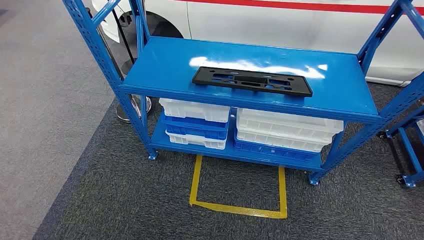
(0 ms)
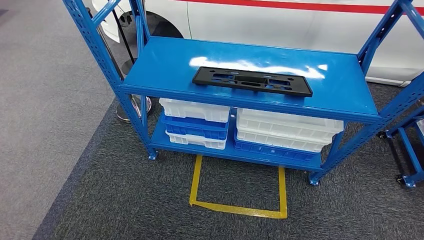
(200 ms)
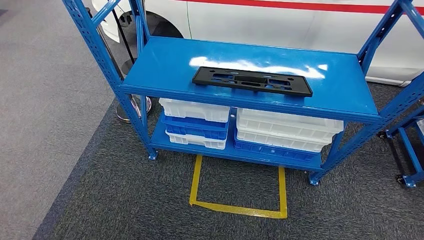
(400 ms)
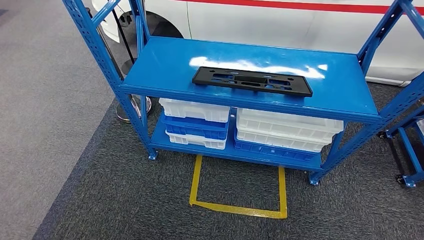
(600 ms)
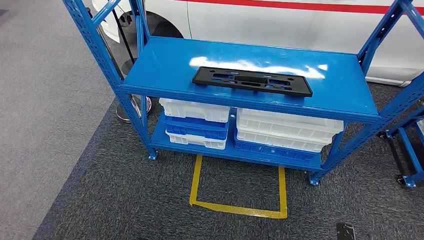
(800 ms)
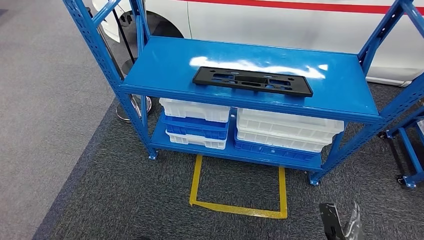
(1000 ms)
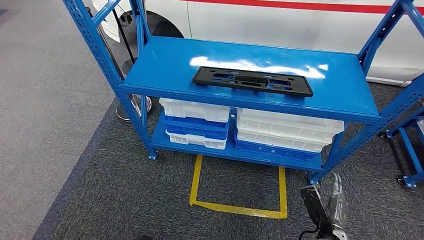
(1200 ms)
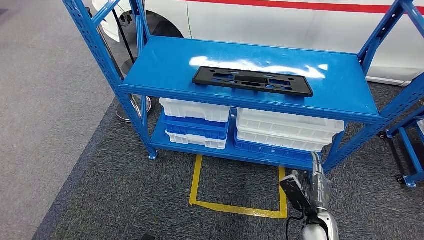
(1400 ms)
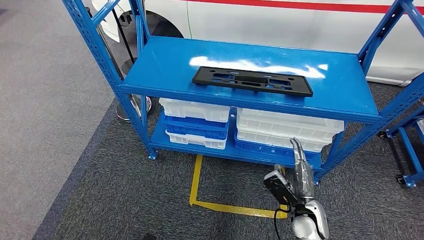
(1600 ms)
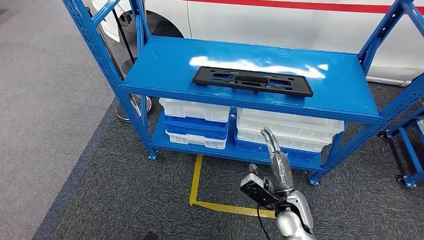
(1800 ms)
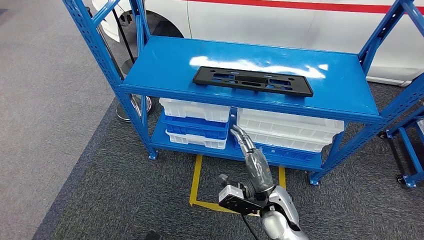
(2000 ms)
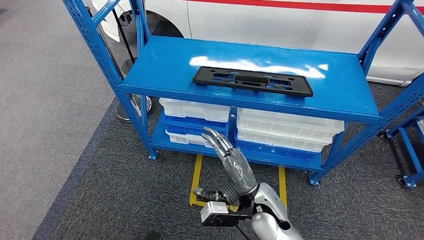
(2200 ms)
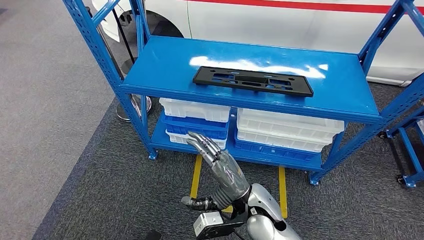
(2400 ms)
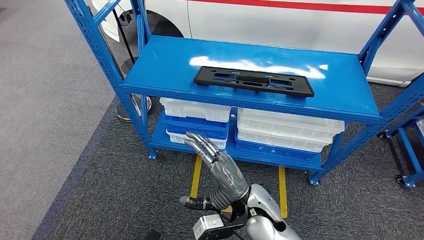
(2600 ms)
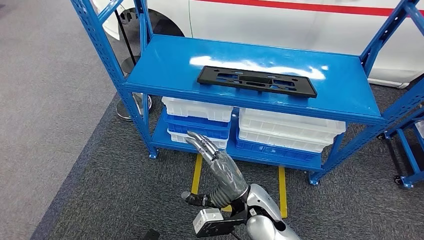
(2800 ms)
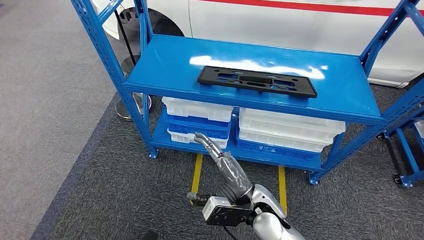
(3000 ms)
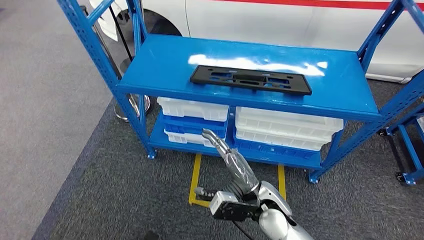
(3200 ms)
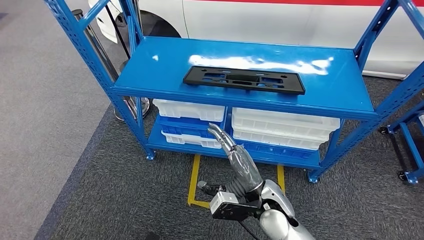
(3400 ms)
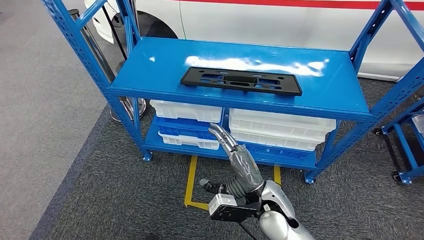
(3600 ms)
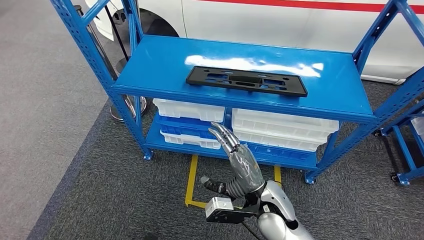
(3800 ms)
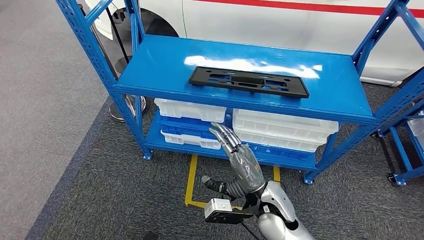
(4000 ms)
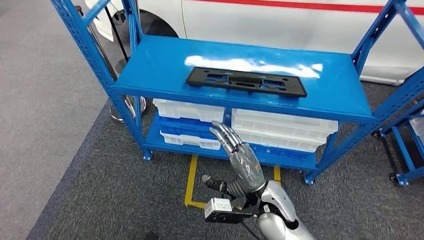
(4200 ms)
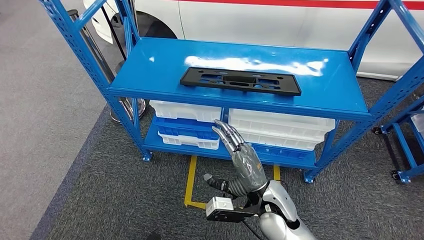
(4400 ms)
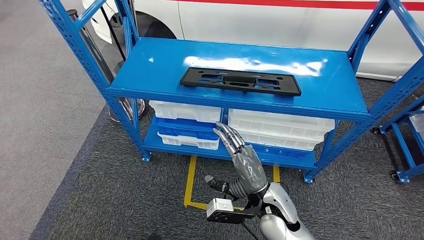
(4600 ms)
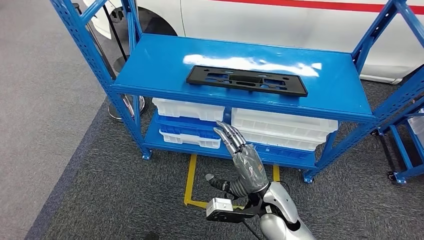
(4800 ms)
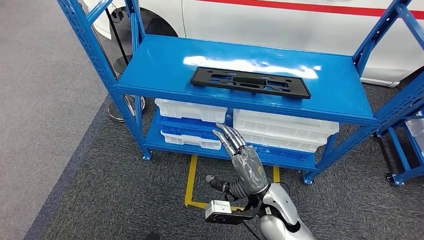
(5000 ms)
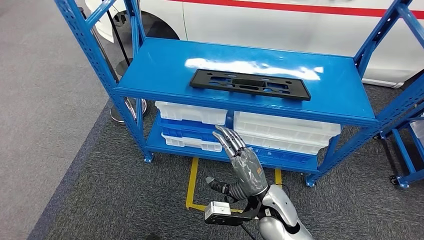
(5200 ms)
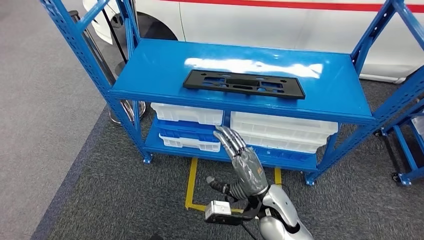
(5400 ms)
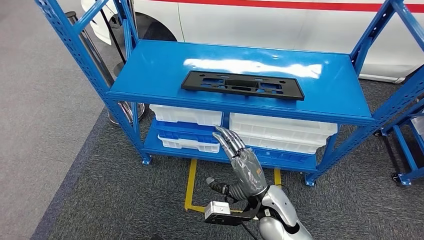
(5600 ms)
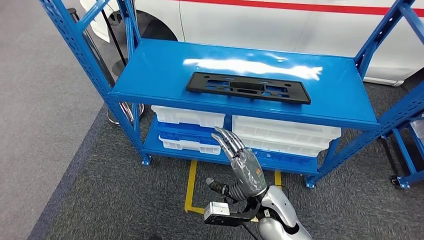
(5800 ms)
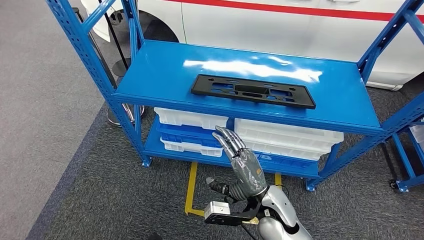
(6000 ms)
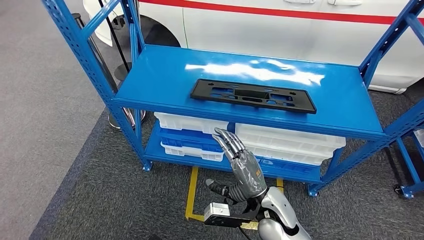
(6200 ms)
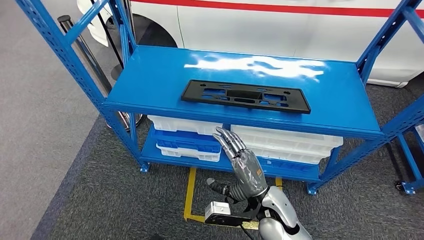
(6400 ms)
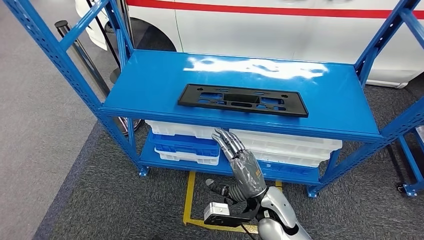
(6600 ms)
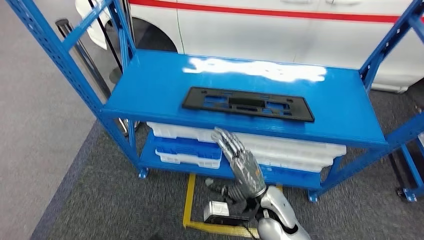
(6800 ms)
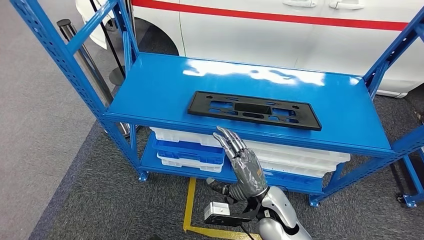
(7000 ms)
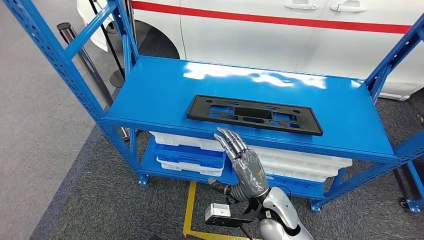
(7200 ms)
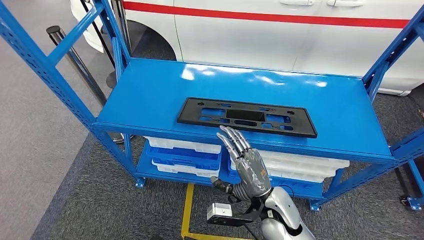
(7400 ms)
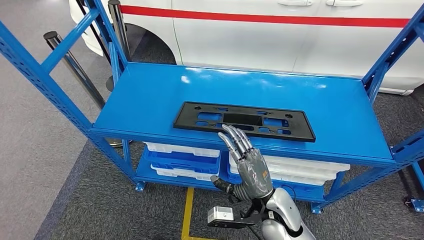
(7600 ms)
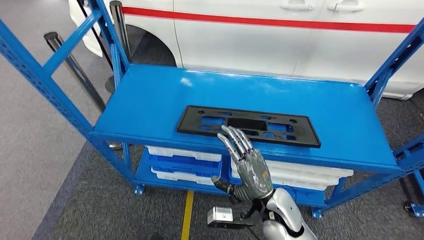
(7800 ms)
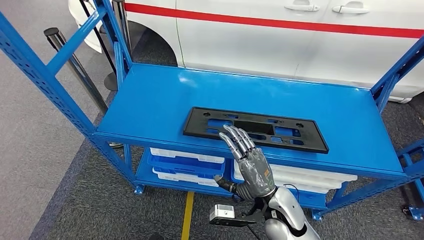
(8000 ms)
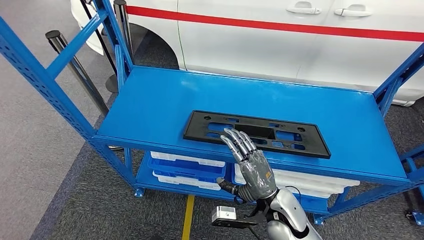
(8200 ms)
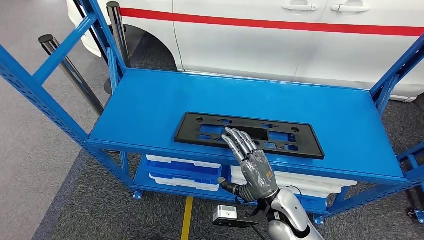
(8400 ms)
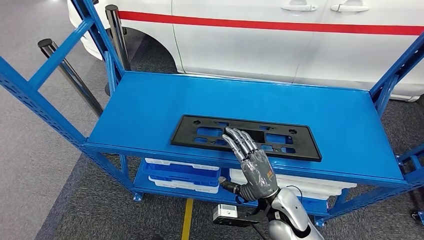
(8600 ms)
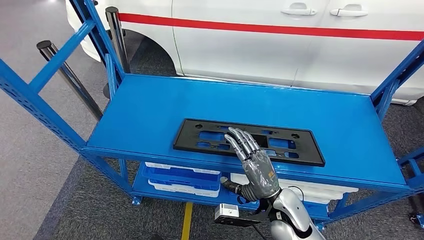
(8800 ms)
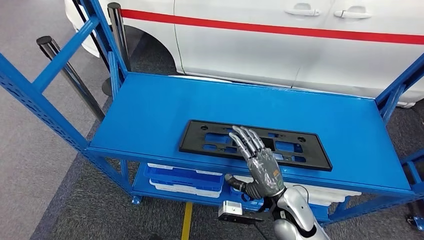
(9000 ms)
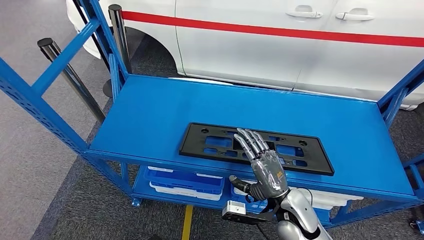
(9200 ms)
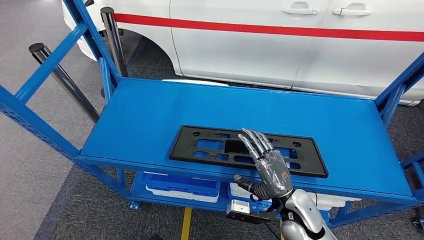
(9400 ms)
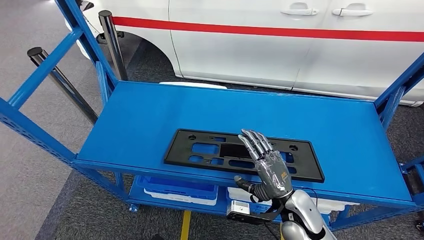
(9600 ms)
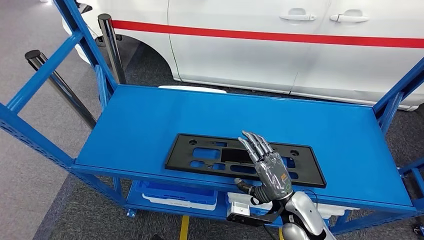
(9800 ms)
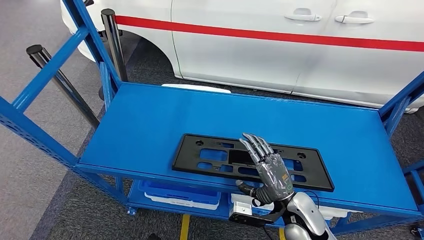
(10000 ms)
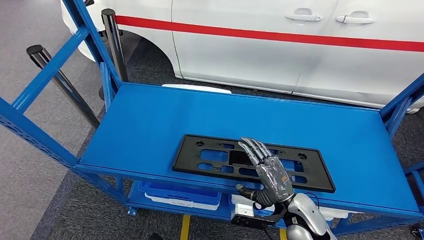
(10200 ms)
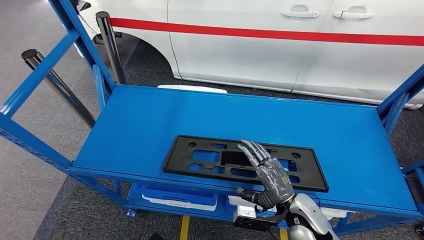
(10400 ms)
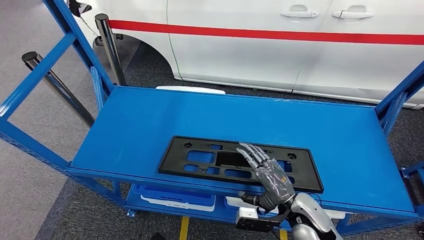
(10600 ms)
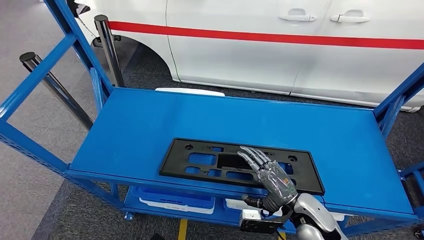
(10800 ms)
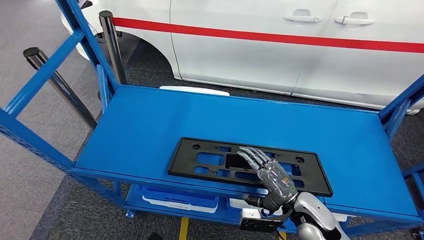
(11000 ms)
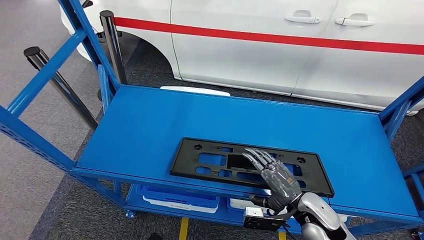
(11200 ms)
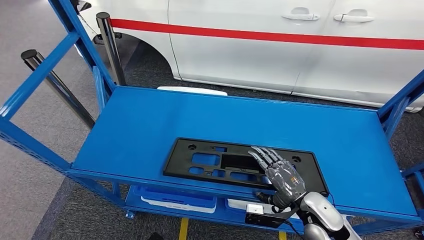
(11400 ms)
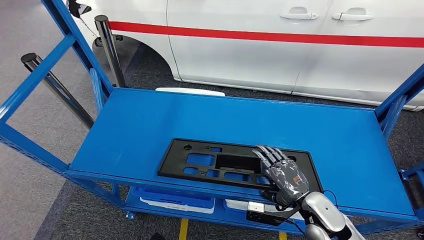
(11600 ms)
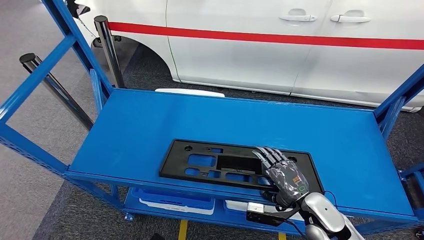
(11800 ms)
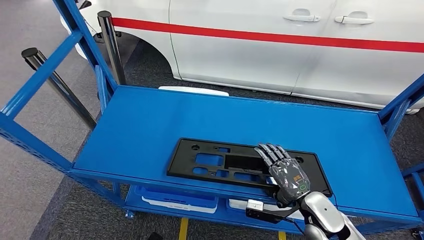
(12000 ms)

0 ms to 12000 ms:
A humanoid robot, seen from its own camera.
1600 ms to 3000 ms: The right hand is displaced to the left and upward by approximately 20 cm.

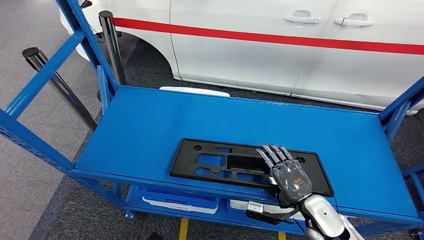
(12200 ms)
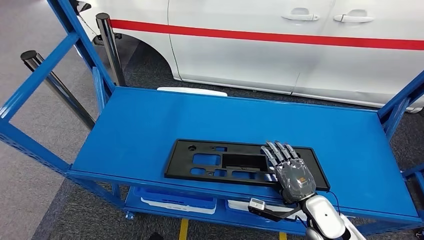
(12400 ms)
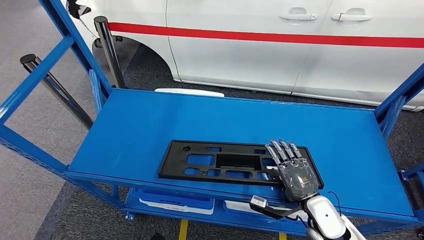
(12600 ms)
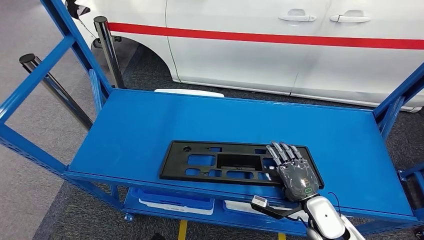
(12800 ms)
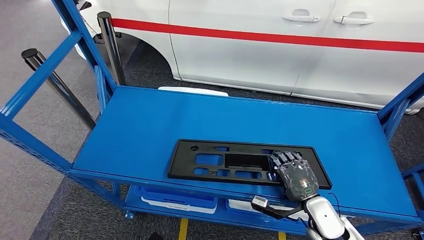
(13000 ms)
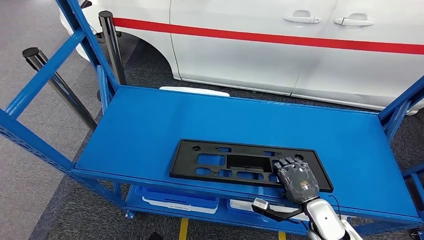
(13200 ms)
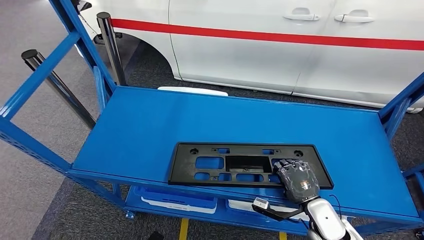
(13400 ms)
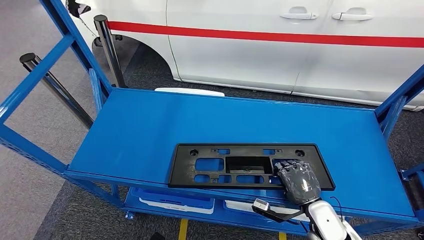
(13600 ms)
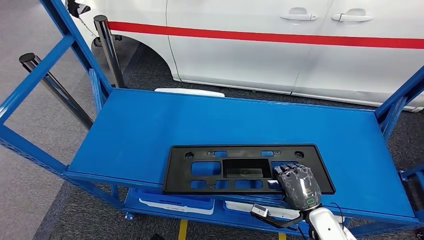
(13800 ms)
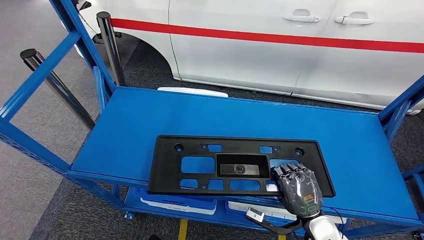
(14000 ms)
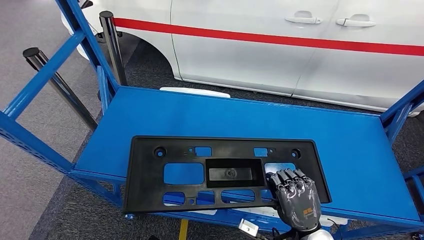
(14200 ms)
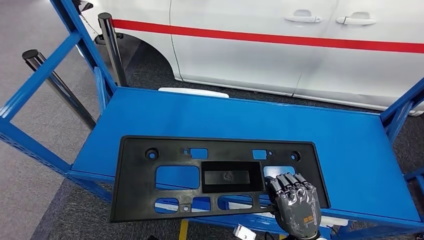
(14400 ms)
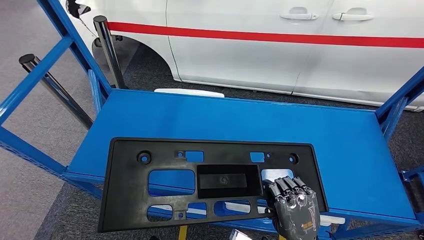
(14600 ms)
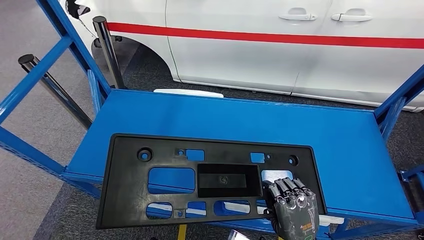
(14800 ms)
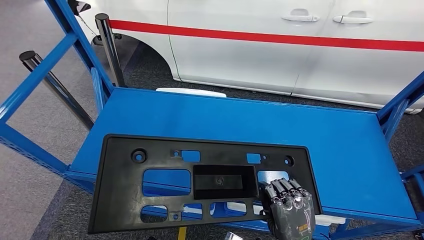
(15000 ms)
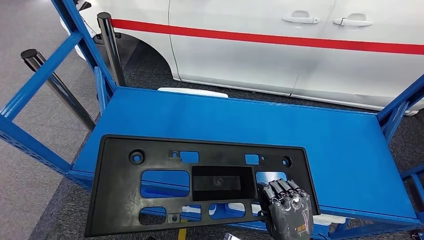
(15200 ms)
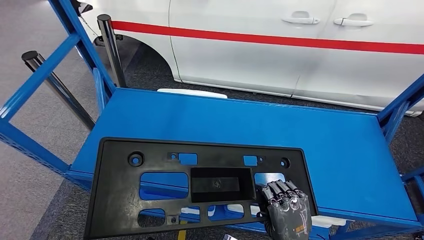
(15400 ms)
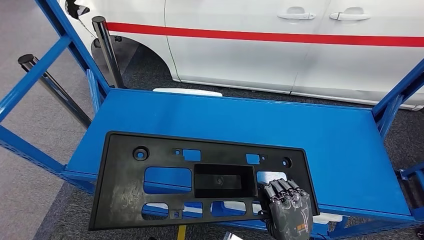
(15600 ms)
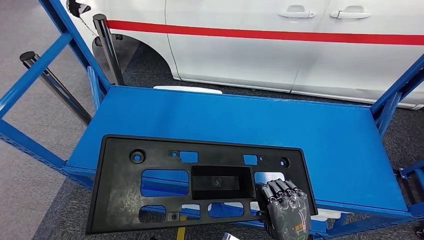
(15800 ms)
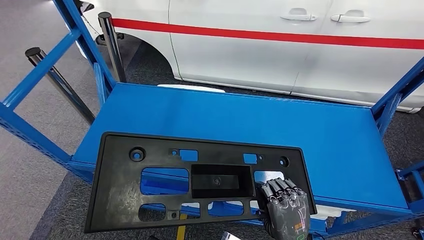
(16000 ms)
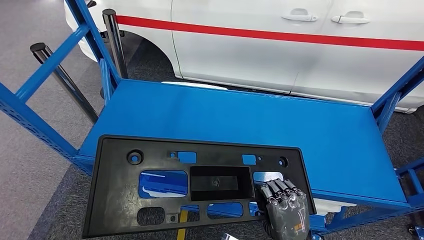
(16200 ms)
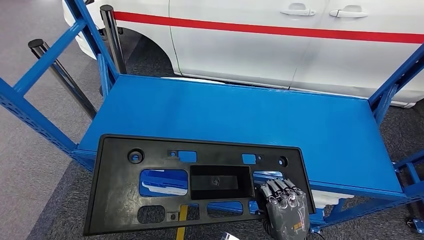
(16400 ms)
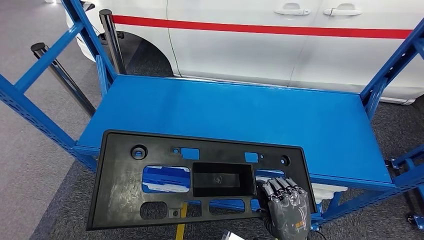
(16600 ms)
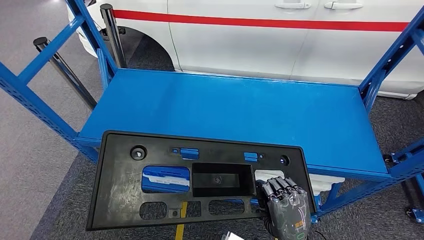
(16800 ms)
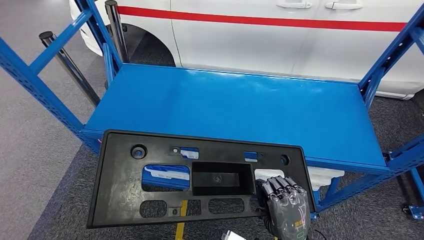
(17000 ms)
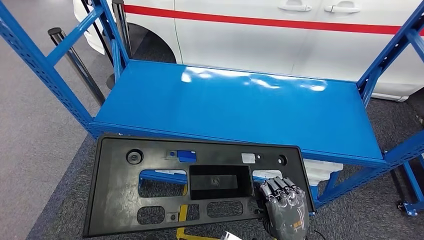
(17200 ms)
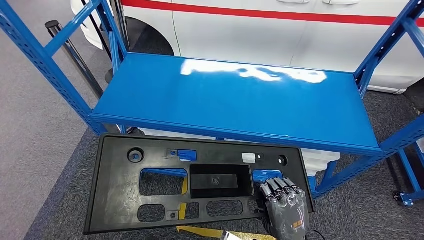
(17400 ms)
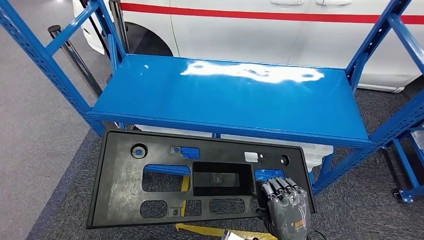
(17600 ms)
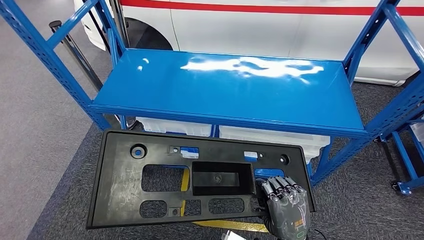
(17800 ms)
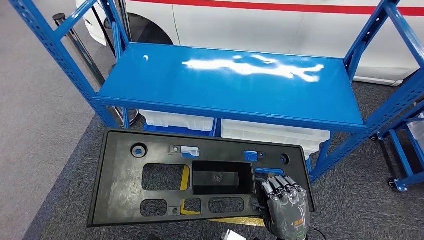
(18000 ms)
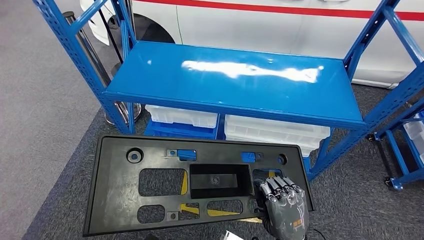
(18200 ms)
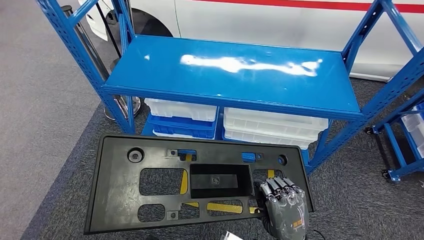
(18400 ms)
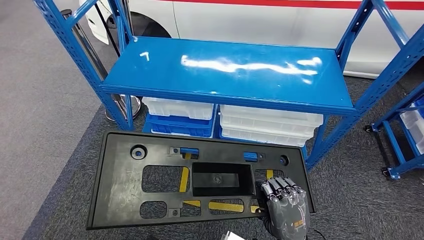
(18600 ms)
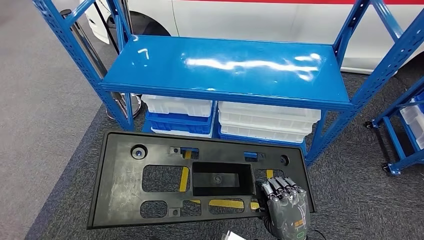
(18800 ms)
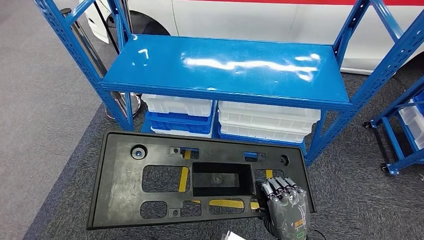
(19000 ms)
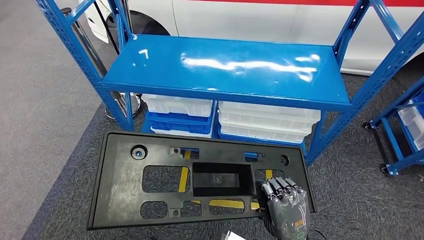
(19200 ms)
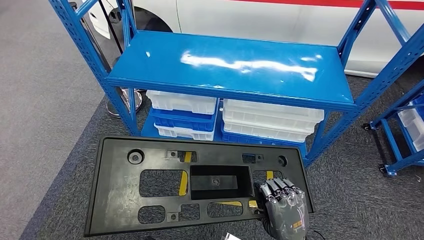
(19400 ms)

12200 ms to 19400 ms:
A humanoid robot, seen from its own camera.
Step, 12200 ms to 14400 ms: Pick up the large material from the shelf.
